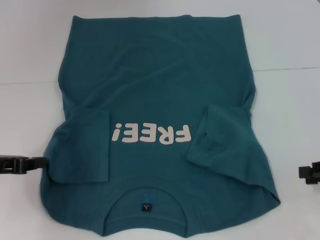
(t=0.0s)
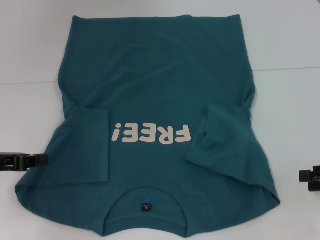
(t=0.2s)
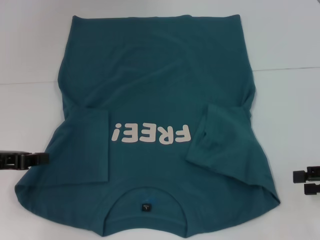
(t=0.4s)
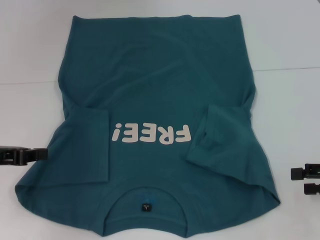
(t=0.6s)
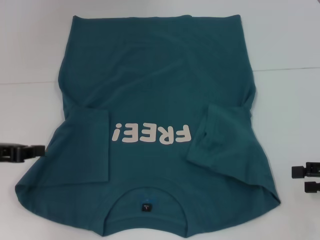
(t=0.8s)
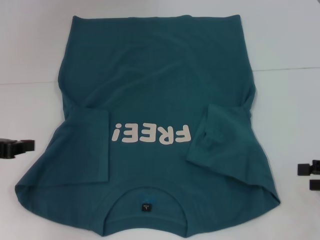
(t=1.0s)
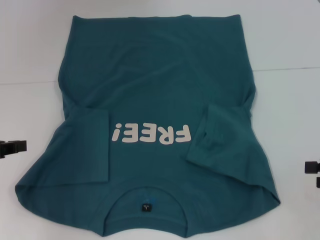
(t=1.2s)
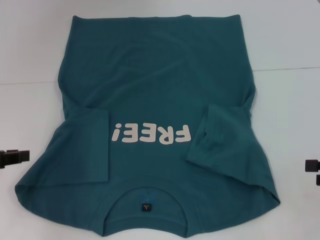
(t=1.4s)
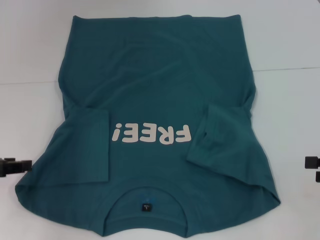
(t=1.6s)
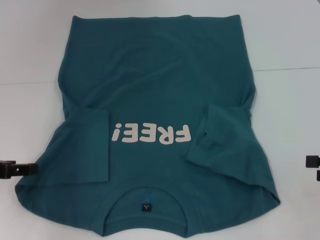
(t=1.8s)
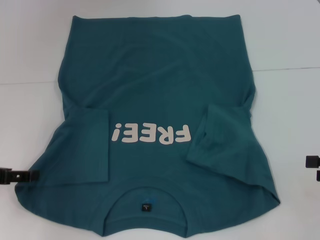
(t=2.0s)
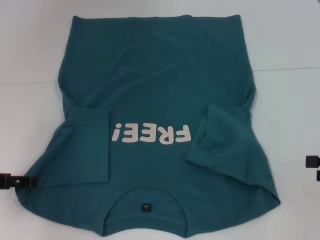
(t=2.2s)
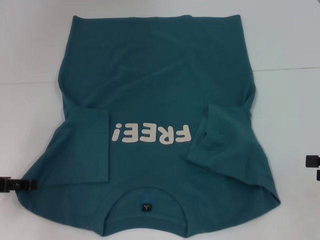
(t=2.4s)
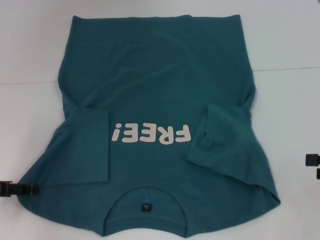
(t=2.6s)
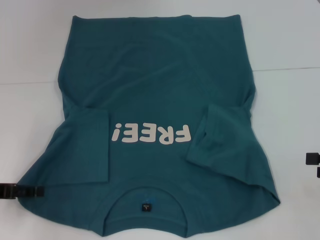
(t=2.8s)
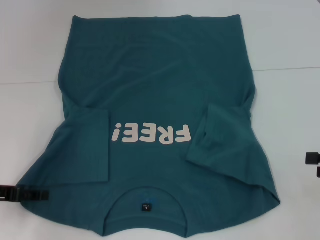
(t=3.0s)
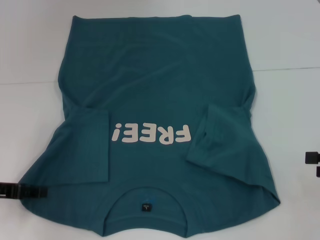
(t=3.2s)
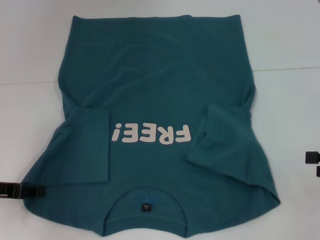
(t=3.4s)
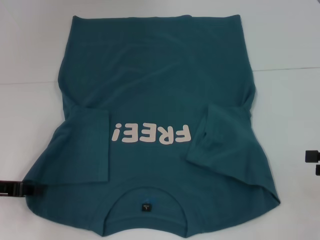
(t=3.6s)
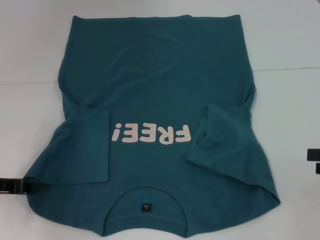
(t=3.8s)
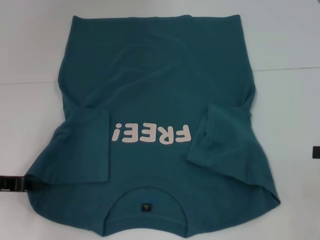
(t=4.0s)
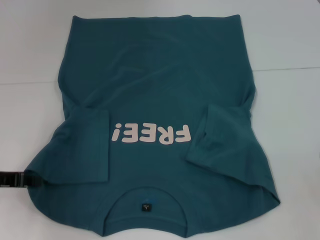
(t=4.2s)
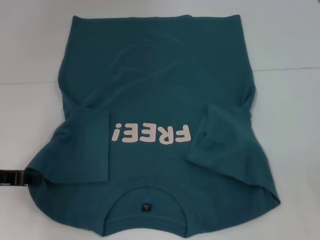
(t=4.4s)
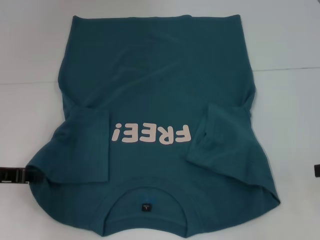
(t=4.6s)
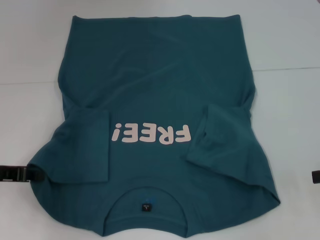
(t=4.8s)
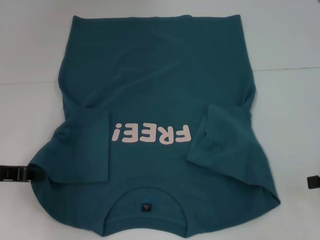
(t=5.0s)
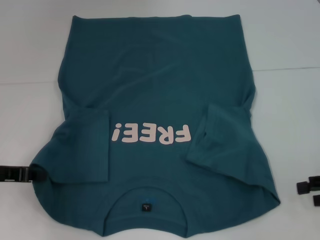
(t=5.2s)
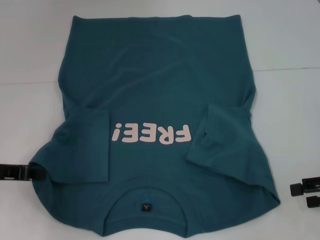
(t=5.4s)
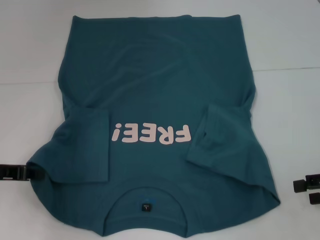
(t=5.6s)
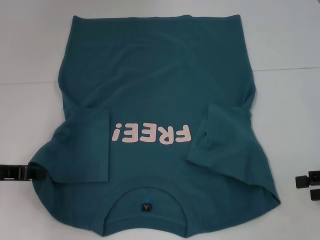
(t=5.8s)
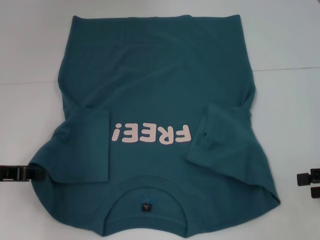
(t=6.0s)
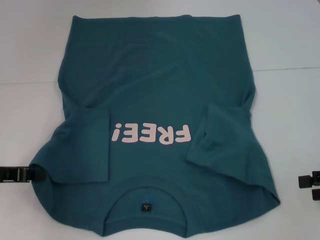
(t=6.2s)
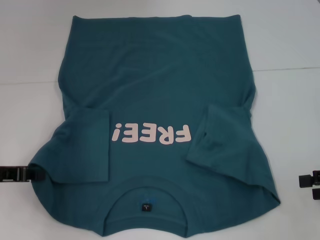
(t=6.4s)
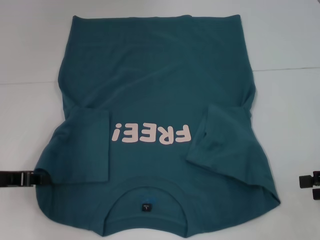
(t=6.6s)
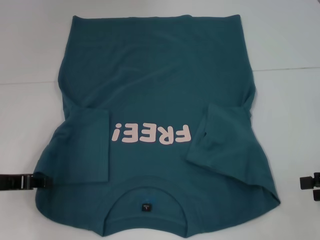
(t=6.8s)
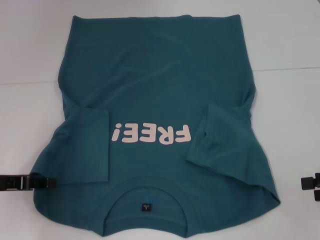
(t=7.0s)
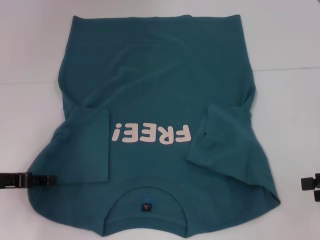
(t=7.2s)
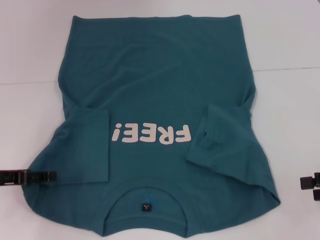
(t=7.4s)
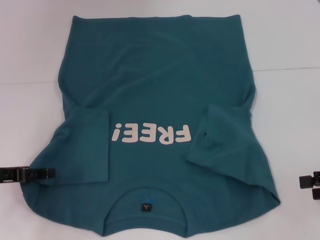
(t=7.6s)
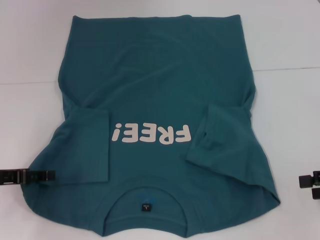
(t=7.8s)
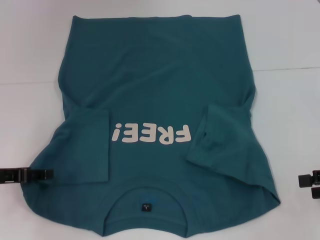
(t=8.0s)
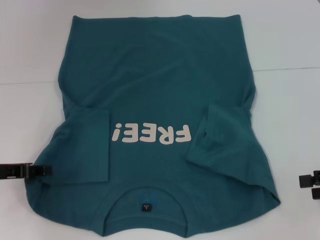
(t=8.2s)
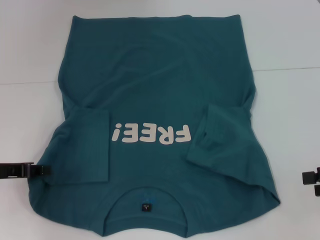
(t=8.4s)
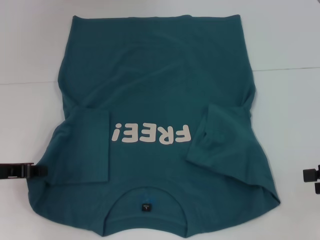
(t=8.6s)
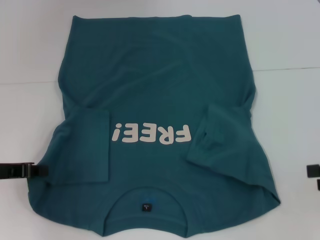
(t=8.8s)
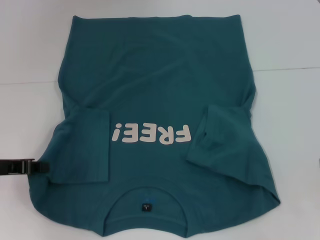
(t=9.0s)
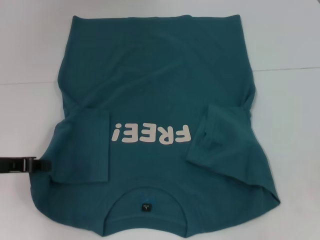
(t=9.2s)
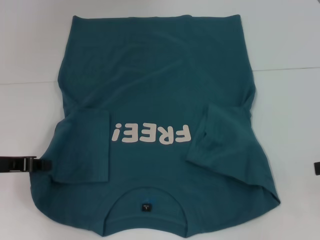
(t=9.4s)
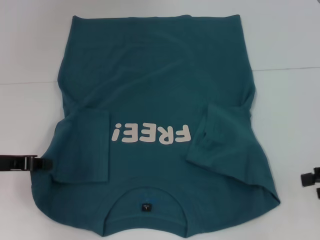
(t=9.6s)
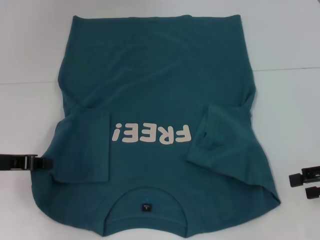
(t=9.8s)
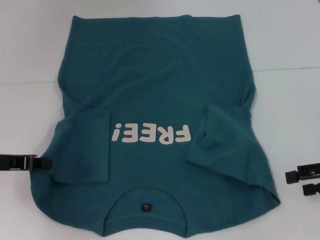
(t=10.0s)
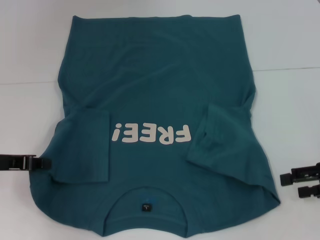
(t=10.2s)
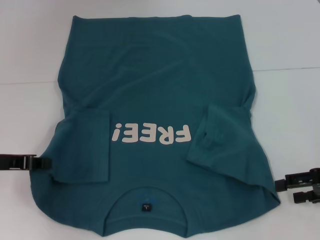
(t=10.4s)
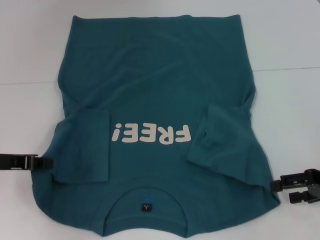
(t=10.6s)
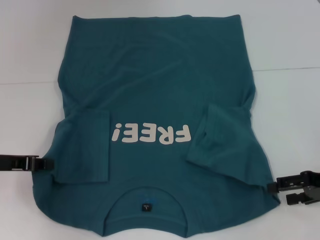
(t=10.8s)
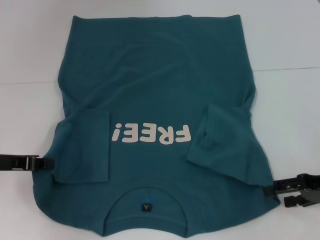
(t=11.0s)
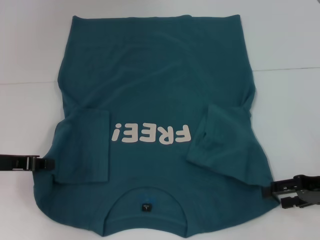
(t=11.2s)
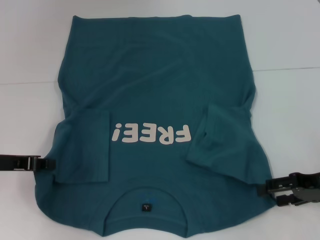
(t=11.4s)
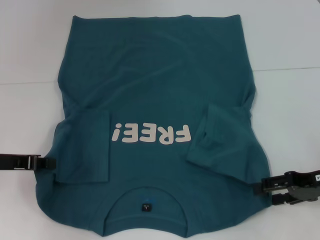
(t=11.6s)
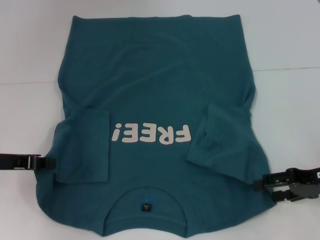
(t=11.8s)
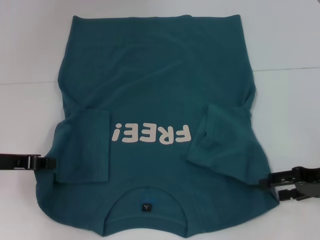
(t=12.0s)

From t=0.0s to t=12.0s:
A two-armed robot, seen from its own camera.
Step, from t=0.0s to t=8.6s: Grab the bottom left corner with your left hand.
From t=1.6s to t=3.0s: The left gripper opens up.
From t=3.0s to t=4.4s: The left gripper closes up.
From t=4.4s to t=6.0s: The grippers move only a little.
From t=6.0s to t=7.6s: The left gripper opens up.
From t=7.6s to t=9.0s: The left gripper closes up.
From t=9.0s to t=10.4s: The right gripper goes roughly 5 cm to the left.
From t=10.4s to t=12.0s: The grippers make only small movements.

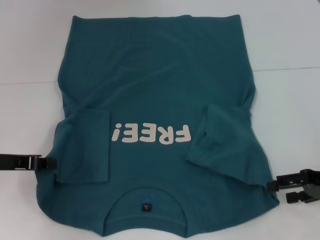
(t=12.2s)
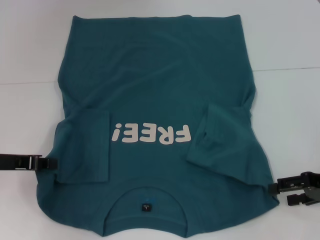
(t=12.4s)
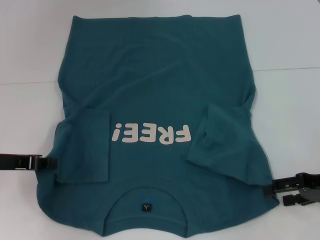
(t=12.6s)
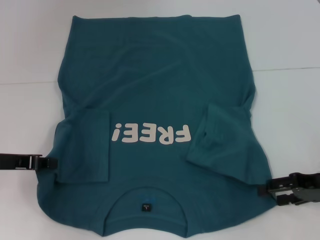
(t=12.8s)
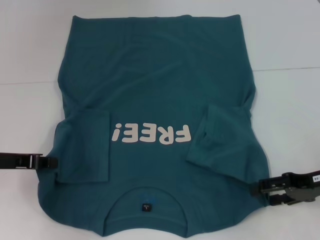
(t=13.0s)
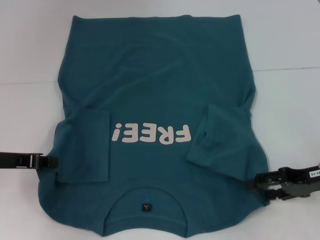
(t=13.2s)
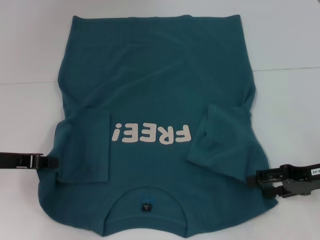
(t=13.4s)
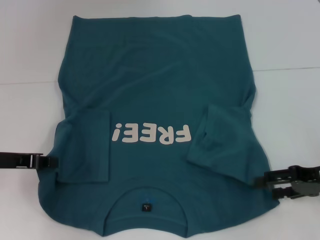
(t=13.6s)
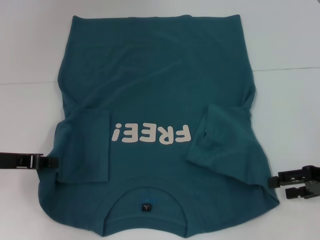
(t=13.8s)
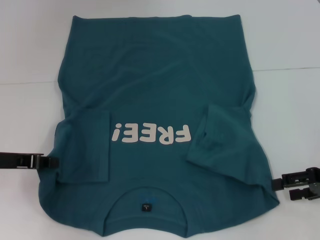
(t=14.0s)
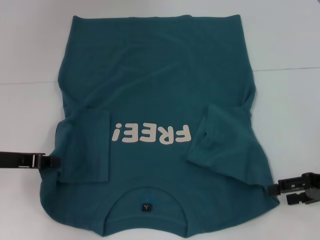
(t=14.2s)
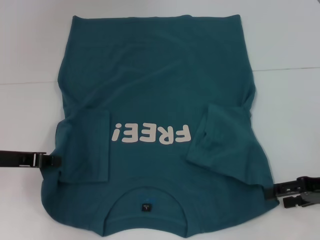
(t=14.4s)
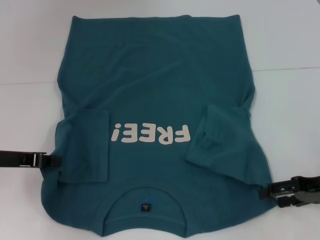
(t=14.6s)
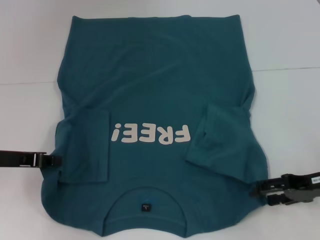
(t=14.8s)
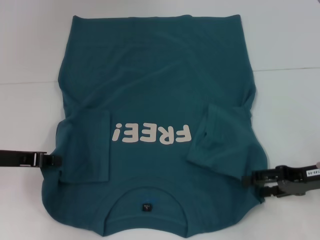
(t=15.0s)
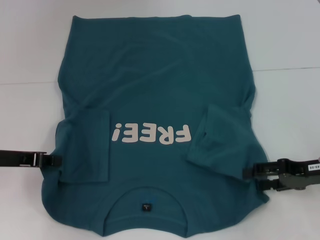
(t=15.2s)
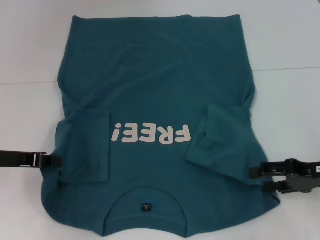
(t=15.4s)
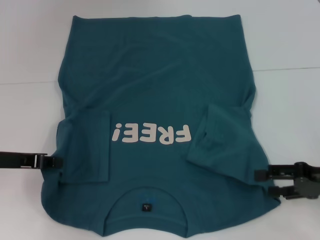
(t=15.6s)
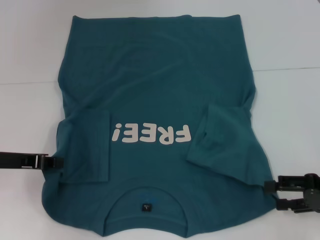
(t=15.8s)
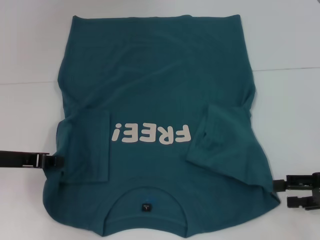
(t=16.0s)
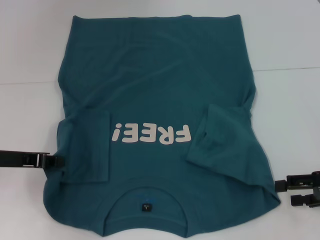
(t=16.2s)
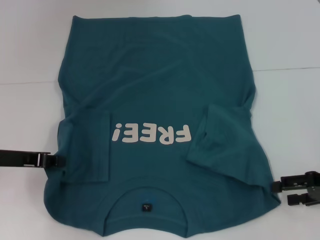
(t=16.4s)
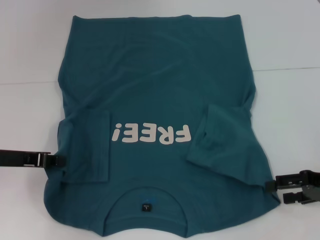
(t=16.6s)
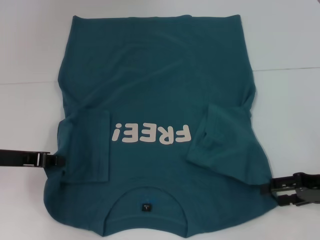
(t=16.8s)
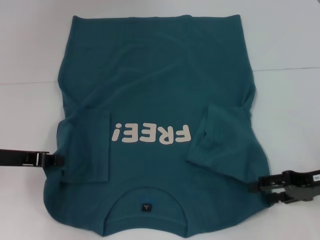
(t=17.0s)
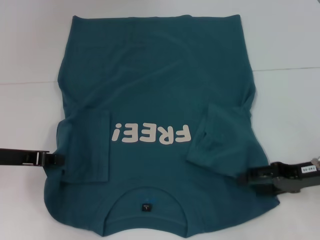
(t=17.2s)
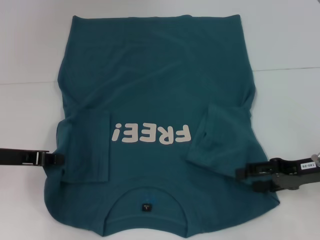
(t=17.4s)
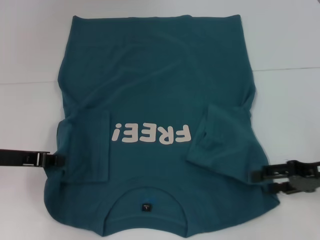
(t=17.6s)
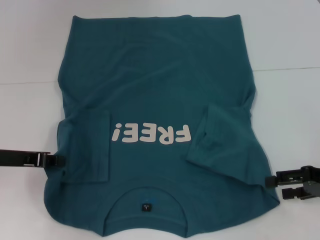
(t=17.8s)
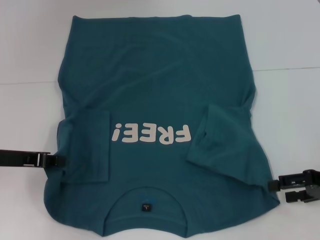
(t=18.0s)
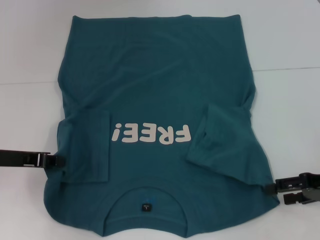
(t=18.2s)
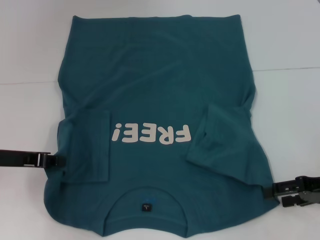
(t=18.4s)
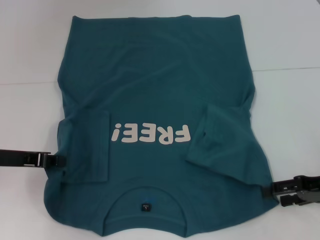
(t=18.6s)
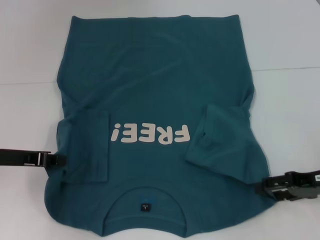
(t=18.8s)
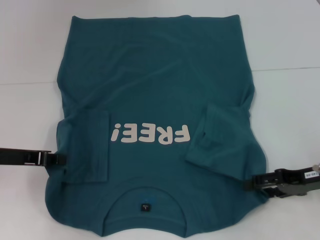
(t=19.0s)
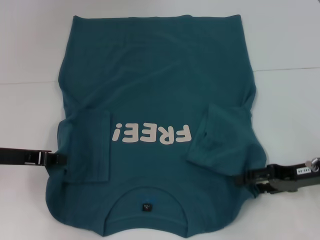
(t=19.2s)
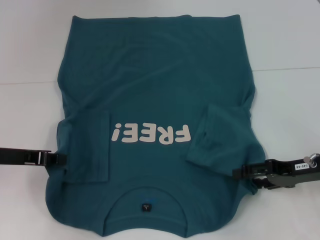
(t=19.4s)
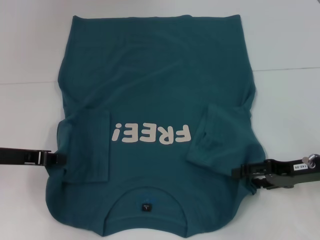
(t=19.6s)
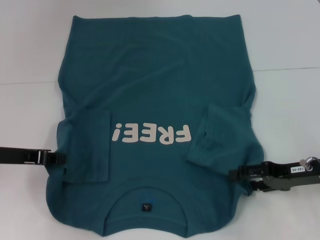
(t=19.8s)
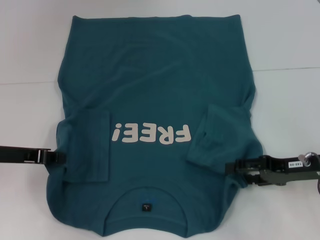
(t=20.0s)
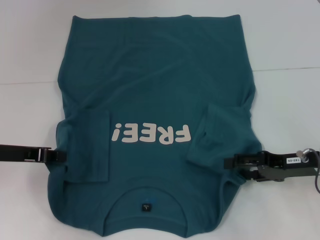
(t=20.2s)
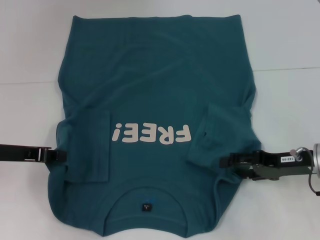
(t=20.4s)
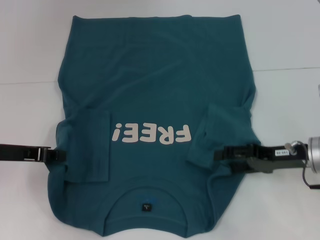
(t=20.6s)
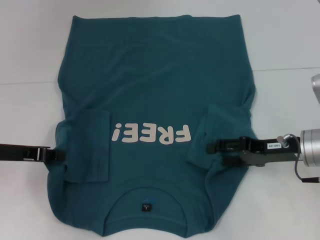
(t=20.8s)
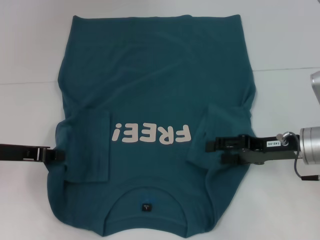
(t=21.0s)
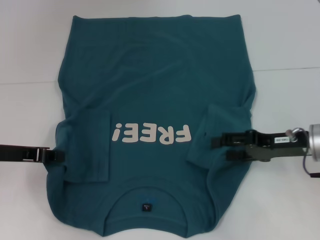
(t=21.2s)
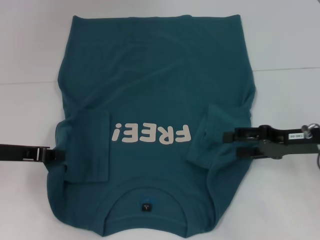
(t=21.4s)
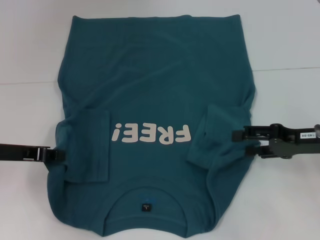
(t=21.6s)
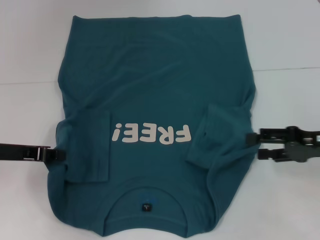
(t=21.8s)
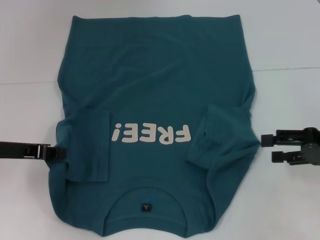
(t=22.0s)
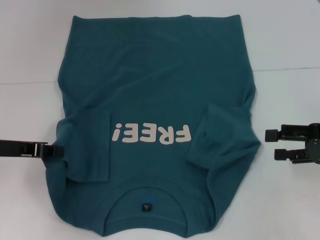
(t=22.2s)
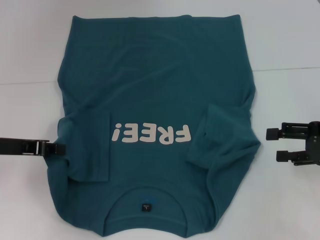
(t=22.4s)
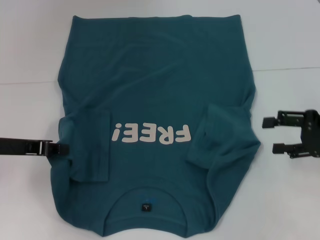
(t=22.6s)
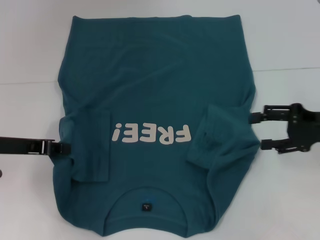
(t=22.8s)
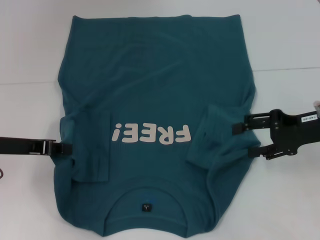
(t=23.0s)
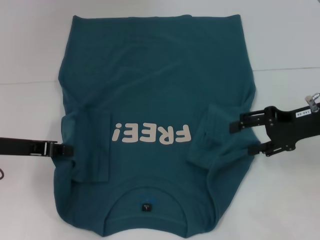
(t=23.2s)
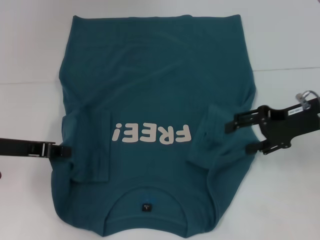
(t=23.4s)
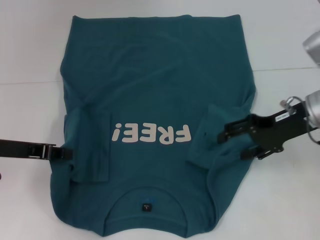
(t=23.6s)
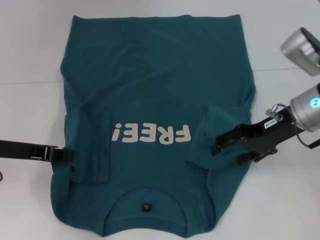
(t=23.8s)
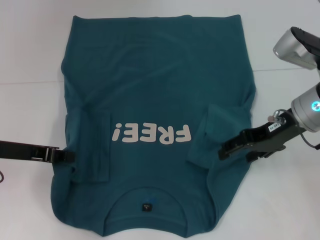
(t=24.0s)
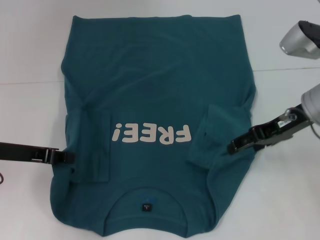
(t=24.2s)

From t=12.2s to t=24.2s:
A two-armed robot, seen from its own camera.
From t=12.2s to t=16.6s: The grippers move only a little.
From t=18.2s to t=19.8s: The right gripper ends up approximately 5 cm from where it was.
From t=19.8s to t=21.2s: The grippers make only small movements.
From t=21.2s to t=22.6s: The right gripper goes approximately 5 cm to the right.
From t=22.6s to t=24.2s: The right gripper shifts roughly 10 cm to the left and forward.
